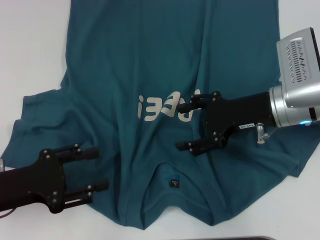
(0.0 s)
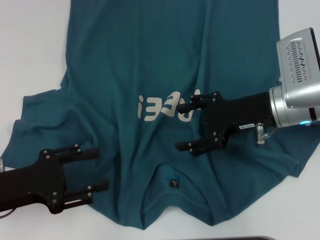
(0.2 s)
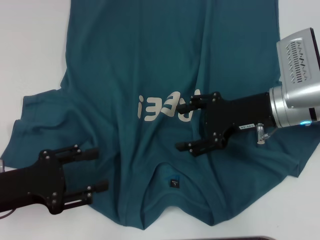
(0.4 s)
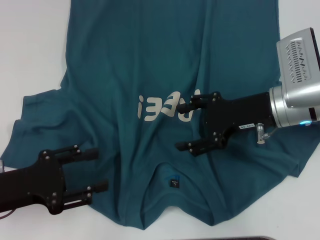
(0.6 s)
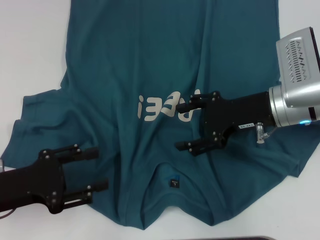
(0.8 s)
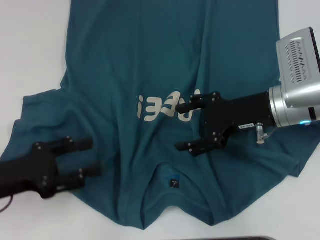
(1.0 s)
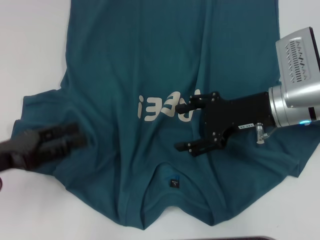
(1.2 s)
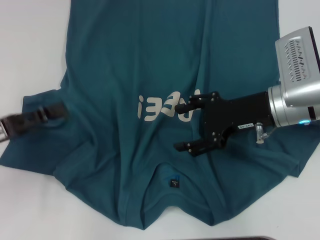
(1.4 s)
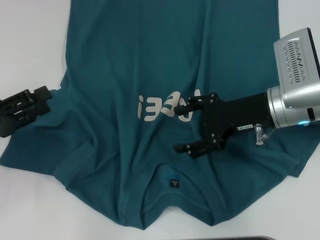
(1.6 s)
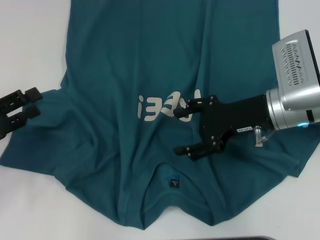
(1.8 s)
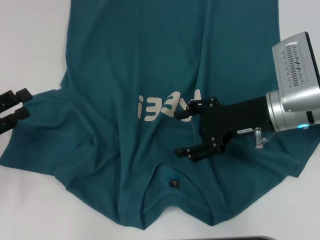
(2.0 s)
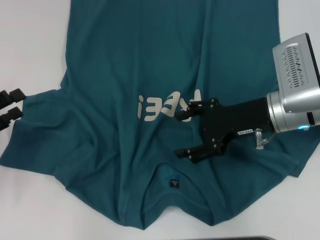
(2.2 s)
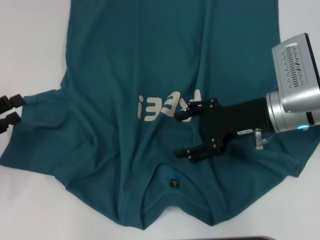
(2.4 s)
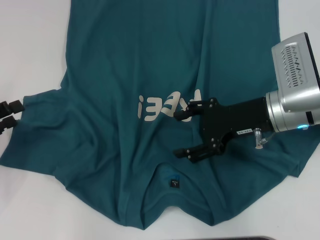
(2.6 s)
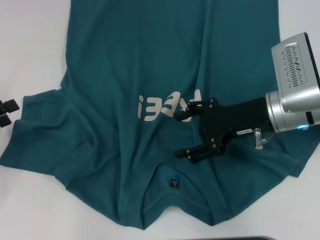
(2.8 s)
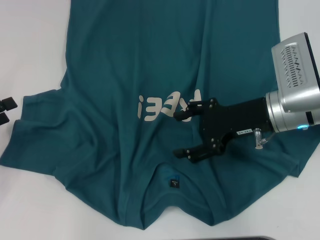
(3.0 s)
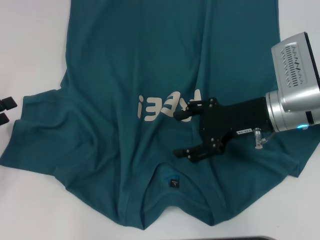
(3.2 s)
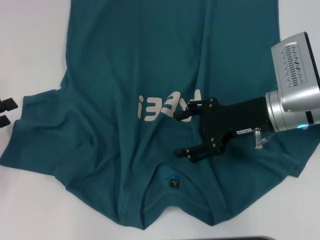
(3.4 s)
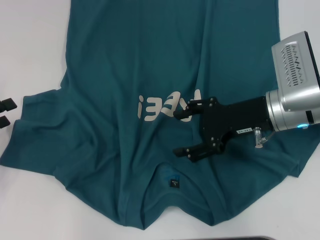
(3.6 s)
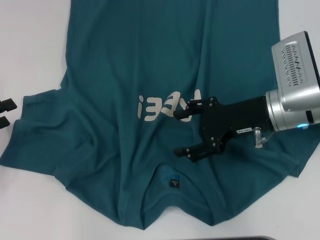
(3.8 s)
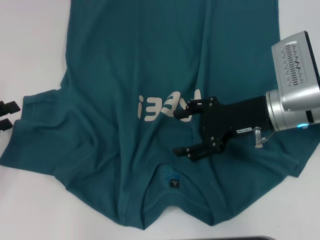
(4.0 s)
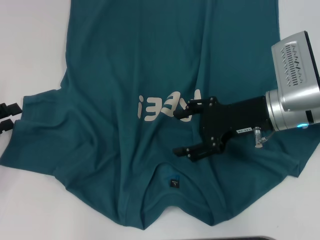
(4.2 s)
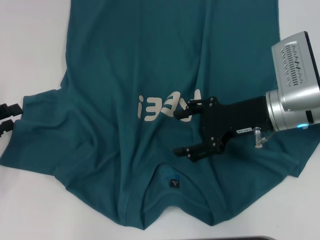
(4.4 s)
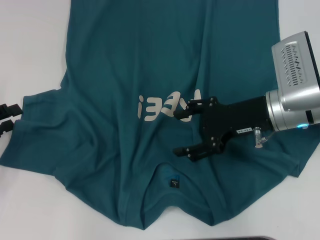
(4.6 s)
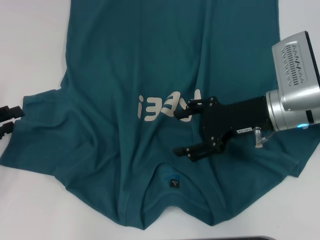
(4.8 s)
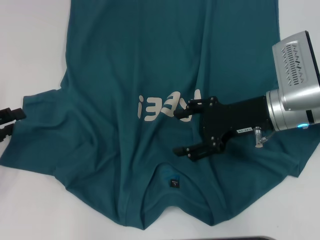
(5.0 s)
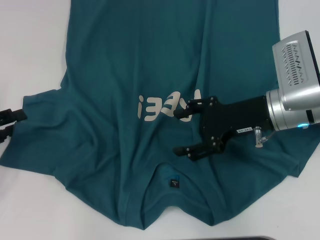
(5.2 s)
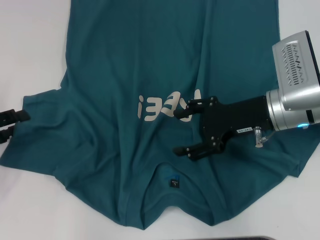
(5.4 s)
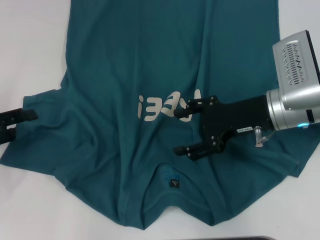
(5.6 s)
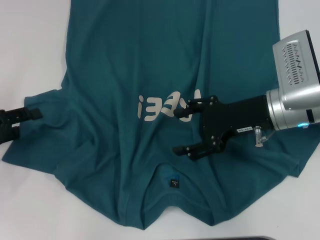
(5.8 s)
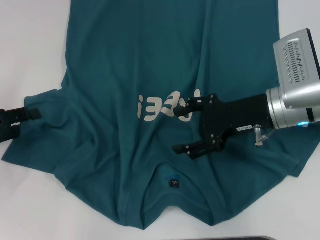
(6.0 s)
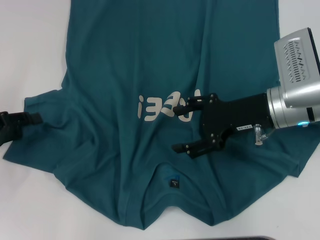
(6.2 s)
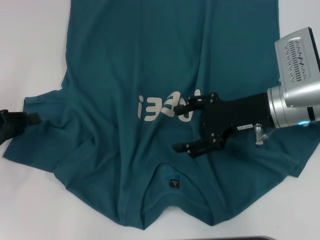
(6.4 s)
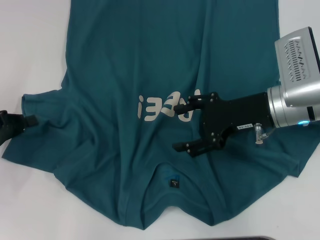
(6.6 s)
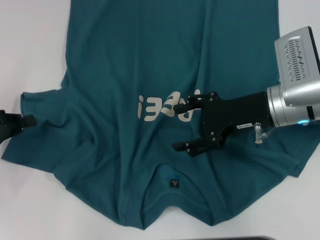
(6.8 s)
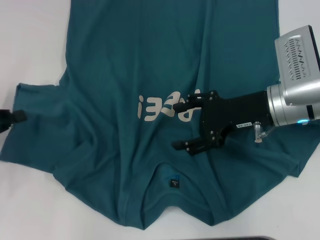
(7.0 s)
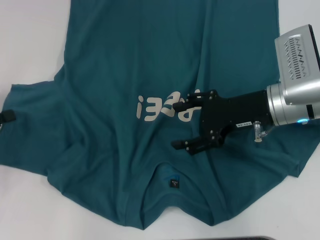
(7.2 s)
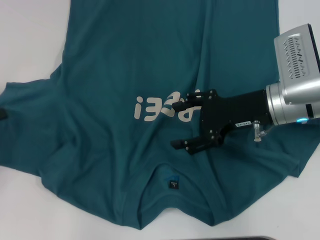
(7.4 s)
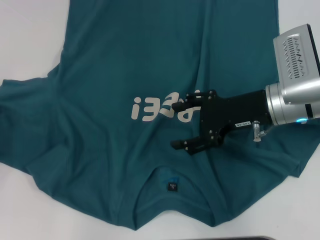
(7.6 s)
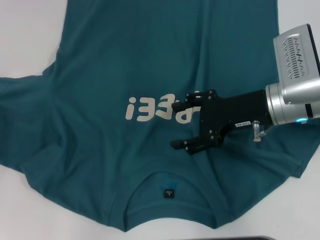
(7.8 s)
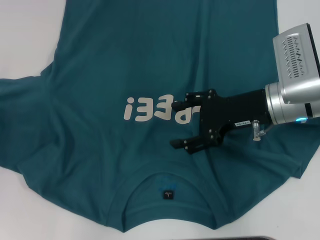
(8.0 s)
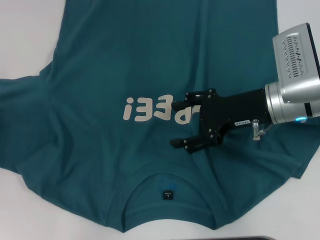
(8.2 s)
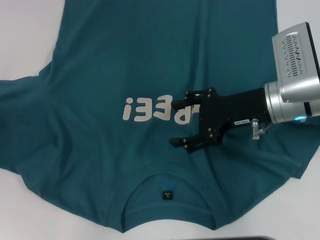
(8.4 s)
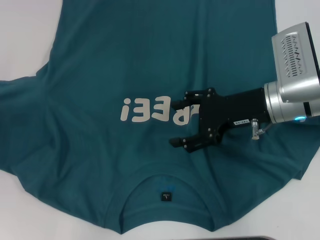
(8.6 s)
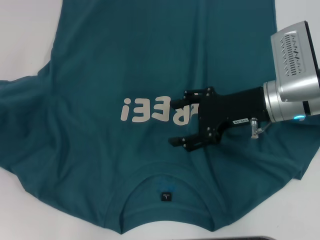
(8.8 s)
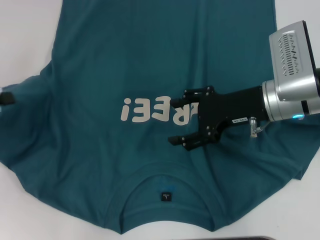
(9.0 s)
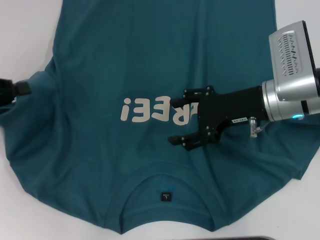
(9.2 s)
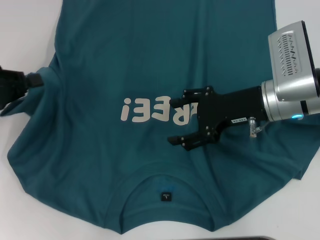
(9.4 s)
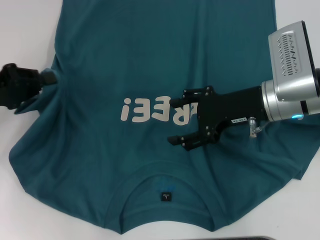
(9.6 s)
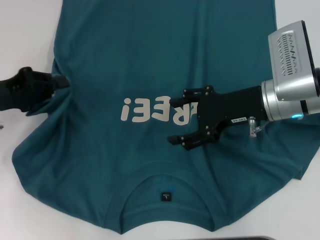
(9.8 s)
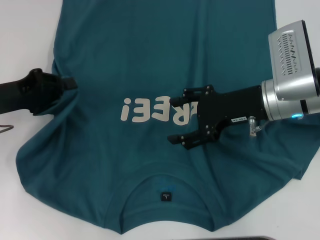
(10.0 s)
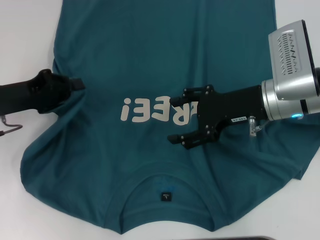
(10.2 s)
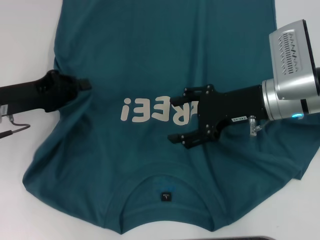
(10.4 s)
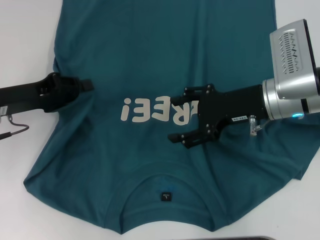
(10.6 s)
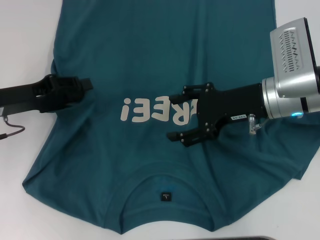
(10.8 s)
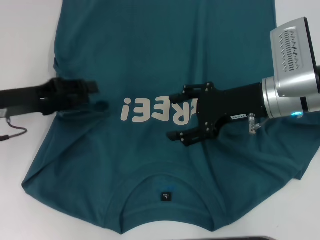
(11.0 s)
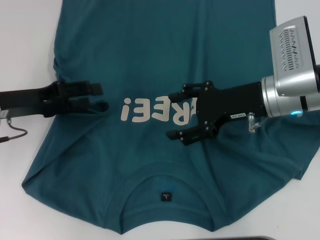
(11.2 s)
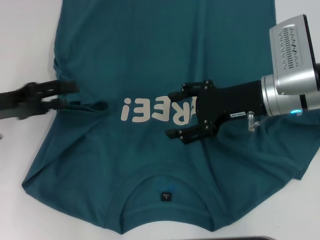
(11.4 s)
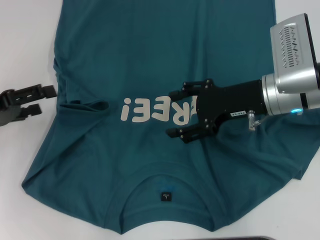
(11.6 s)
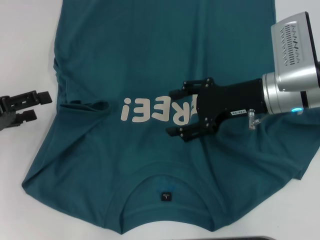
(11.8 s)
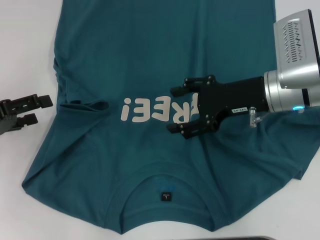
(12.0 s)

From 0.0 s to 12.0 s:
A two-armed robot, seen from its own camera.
From 0.0 s to 1.6 s: The left gripper shifts by approximately 5 cm.
From 1.6 s to 3.0 s: The grippers move only a little.
From 3.0 s to 6.0 s: The grippers make only small movements.
From 6.0 s to 7.6 s: The left gripper closes up.
From 7.6 s to 9.0 s: The grippers stay close to where they were, moving slightly.
From 9.0 s to 10.4 s: The left gripper moves to the right, roughly 10 cm.
From 10.4 s to 12.0 s: The left gripper goes roughly 5 cm to the left, and opens up.

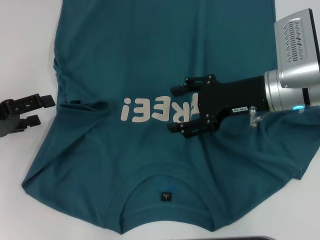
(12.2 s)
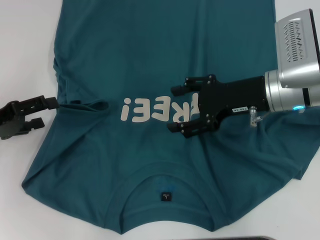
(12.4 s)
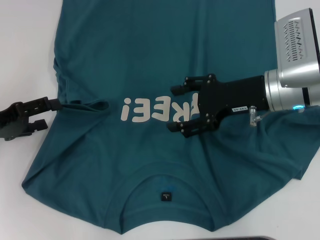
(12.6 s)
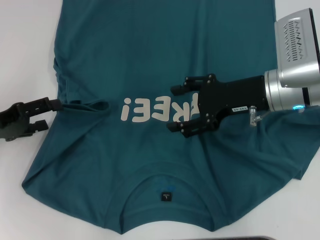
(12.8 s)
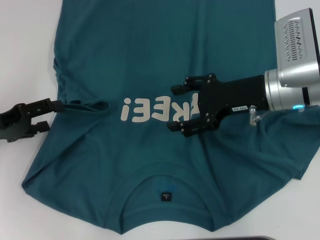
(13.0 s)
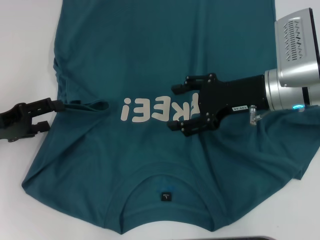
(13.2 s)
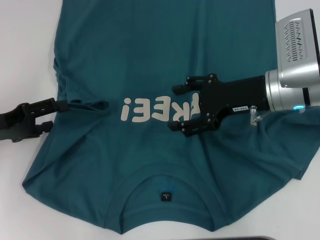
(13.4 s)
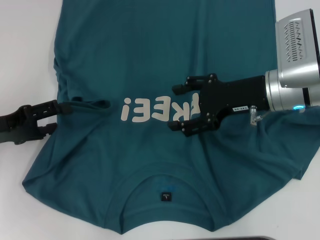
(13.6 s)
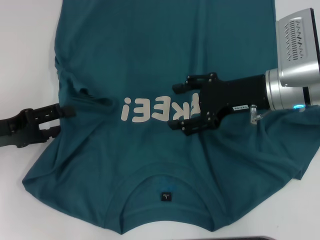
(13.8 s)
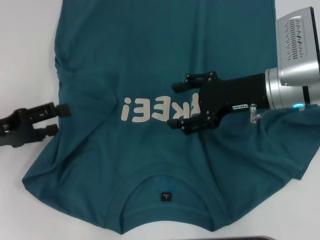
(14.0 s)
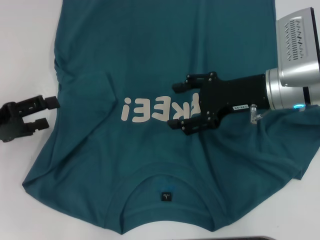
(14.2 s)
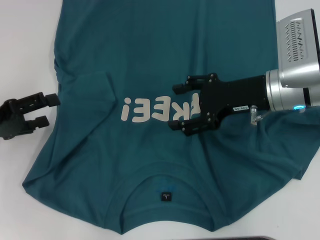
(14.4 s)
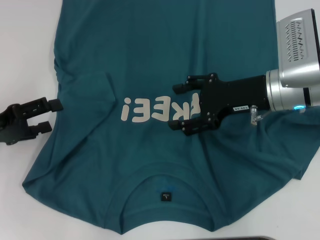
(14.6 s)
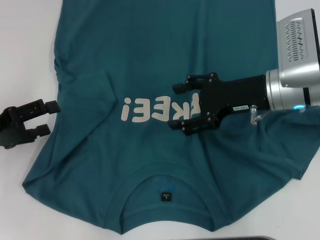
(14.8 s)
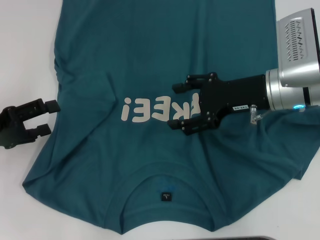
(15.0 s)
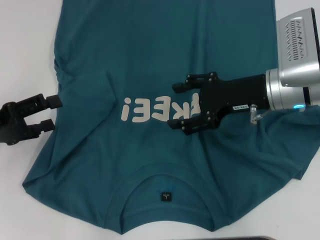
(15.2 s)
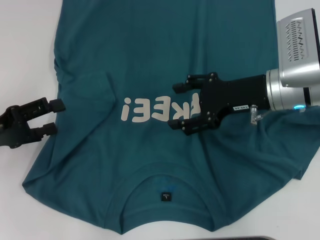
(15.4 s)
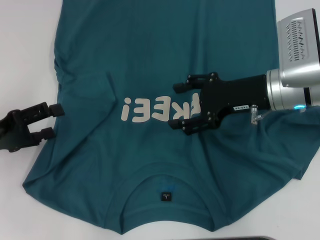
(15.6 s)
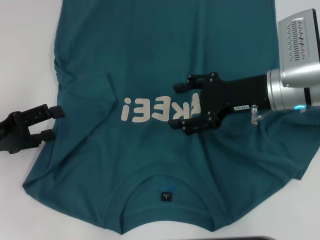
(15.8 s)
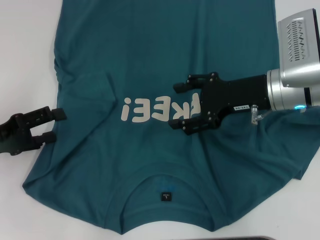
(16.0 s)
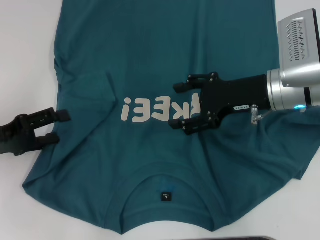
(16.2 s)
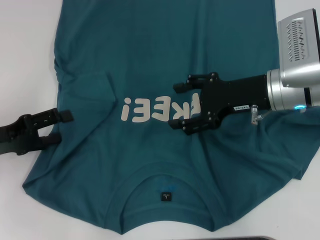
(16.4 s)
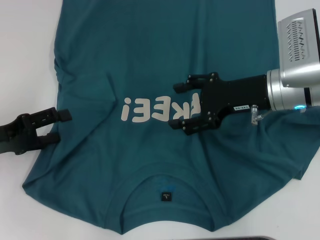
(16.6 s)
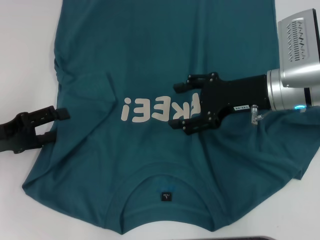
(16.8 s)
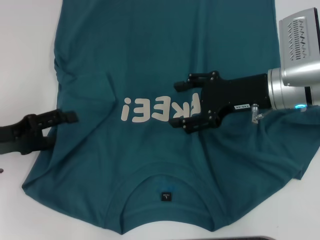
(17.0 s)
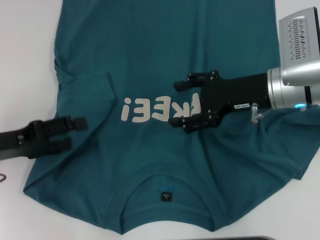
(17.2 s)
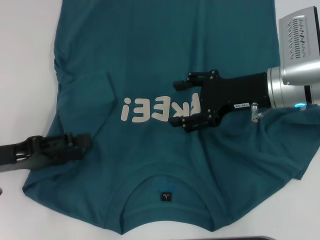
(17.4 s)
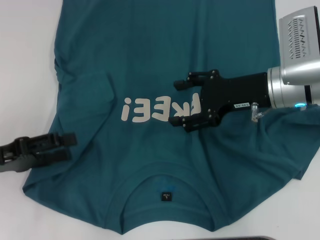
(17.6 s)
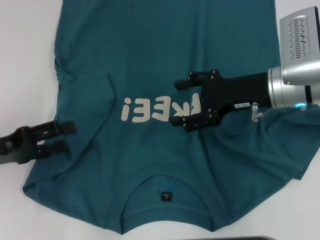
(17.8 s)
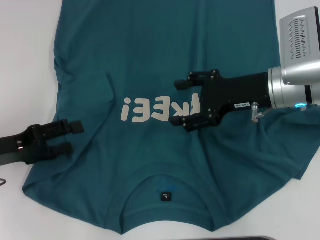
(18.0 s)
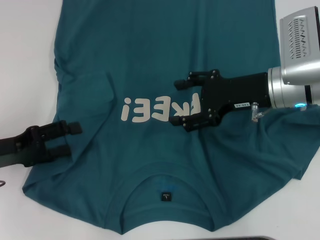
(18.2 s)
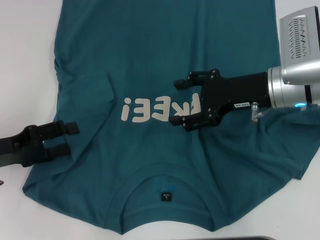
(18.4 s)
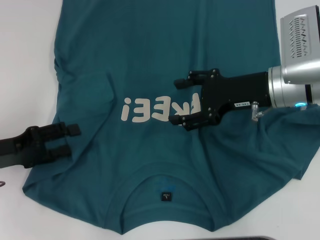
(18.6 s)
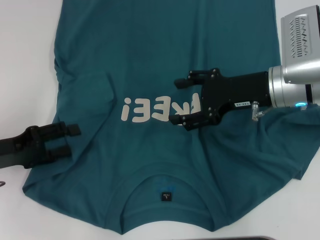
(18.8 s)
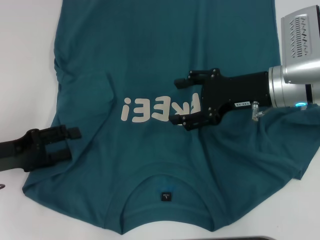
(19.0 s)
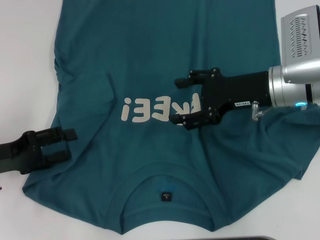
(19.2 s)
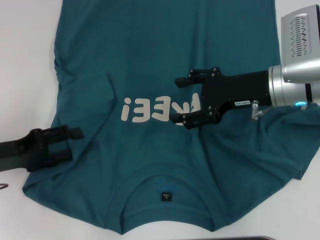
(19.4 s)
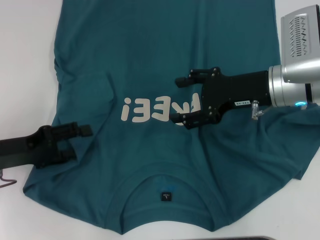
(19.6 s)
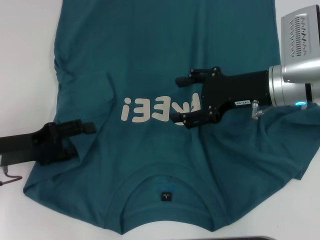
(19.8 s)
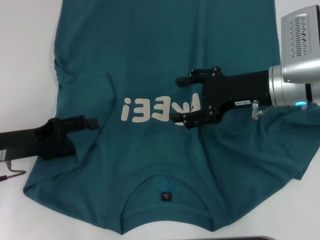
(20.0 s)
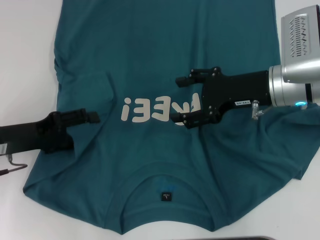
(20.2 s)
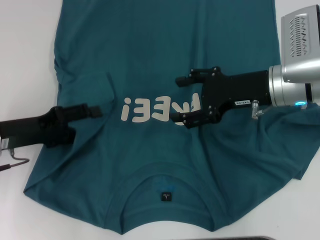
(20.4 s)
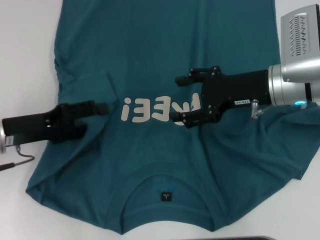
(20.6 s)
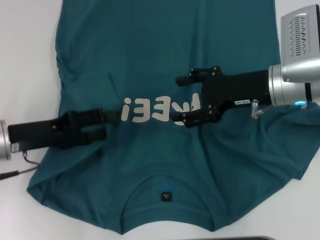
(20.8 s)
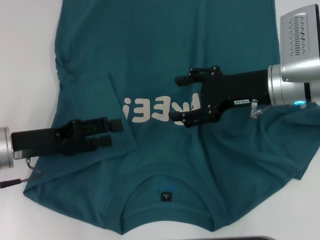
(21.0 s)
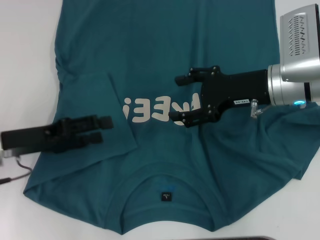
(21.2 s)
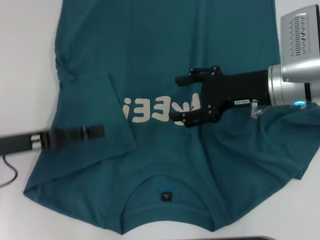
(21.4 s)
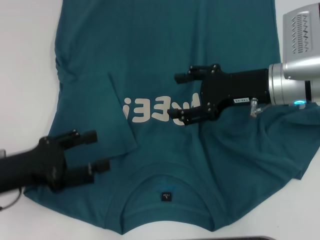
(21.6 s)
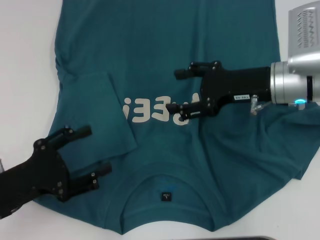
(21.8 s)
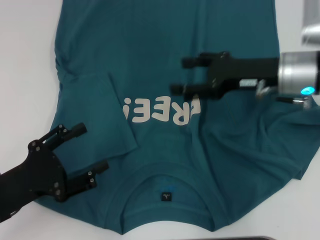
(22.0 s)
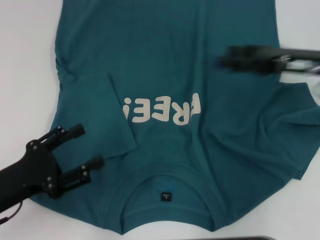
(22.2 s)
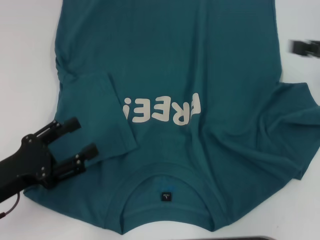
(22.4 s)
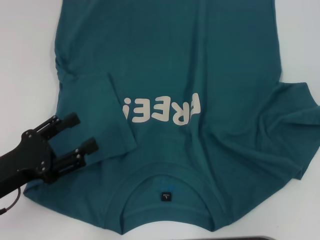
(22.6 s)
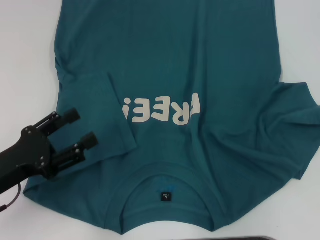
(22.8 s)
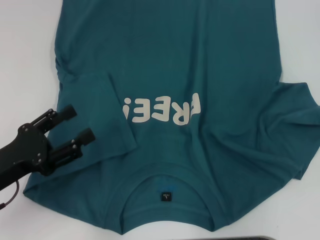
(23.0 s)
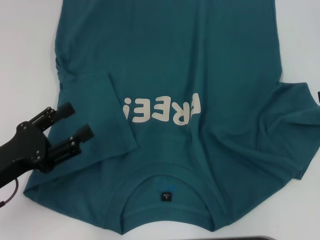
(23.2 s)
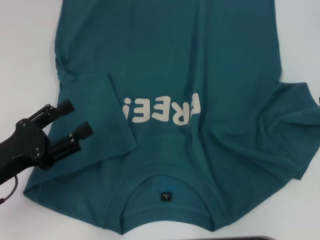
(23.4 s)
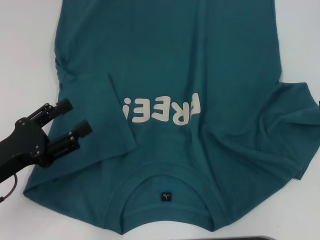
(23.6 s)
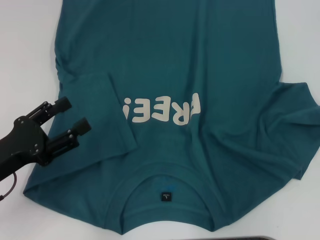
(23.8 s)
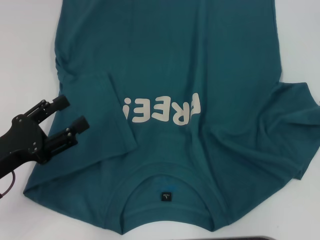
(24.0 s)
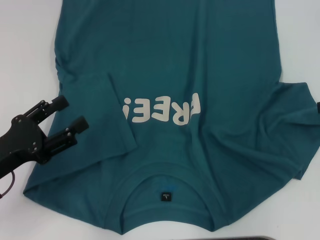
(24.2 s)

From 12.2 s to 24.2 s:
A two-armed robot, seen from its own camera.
Step, from 12.2 s to 21.2 s: Fold the bottom left sleeve with your left hand.
From 12.2 s to 16.6 s: There are only small adjustments of the grippers.
From 16.6 s to 21.2 s: The grippers make only small movements.
From 21.2 s to 22.6 s: The right gripper goes about 20 cm to the right. Meanwhile the left gripper travels backward by roughly 10 cm.
From 22.6 s to 24.2 s: The grippers make only small movements.
